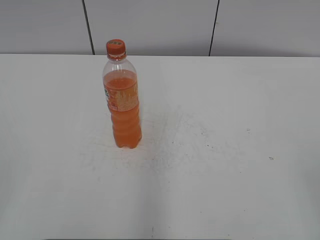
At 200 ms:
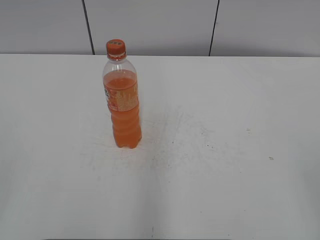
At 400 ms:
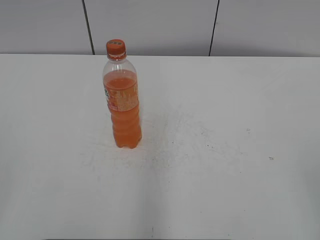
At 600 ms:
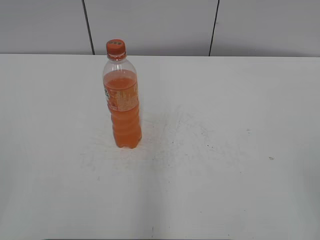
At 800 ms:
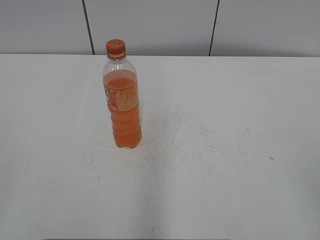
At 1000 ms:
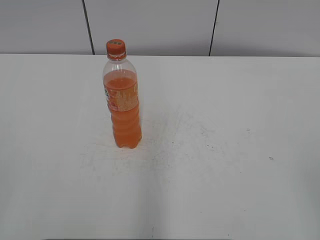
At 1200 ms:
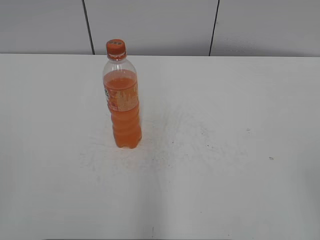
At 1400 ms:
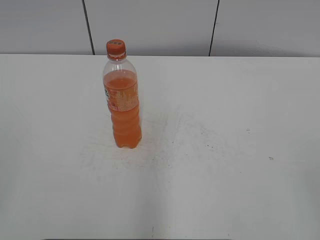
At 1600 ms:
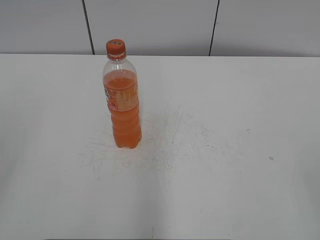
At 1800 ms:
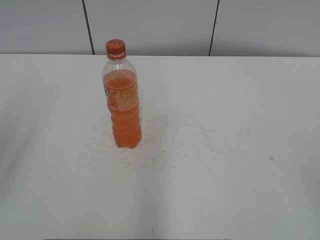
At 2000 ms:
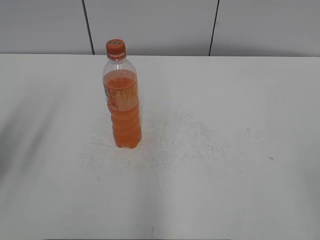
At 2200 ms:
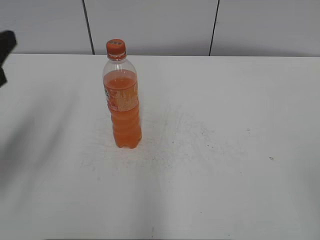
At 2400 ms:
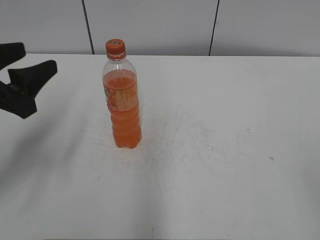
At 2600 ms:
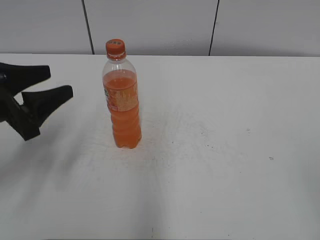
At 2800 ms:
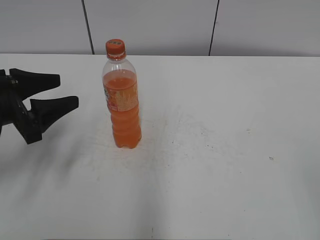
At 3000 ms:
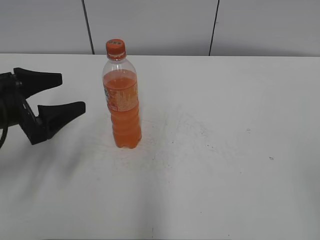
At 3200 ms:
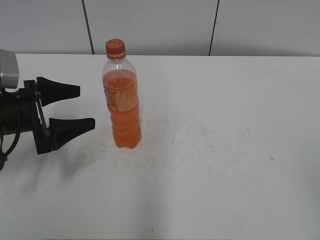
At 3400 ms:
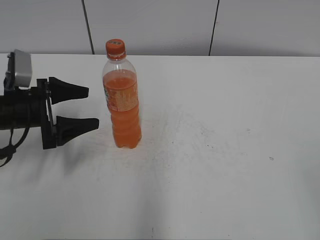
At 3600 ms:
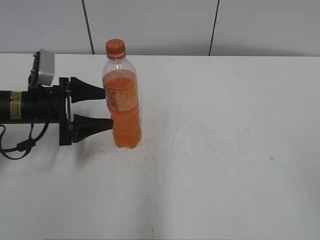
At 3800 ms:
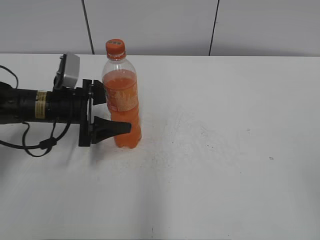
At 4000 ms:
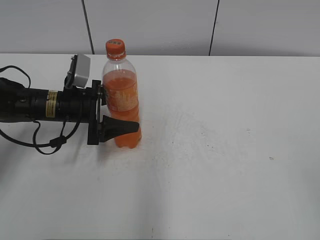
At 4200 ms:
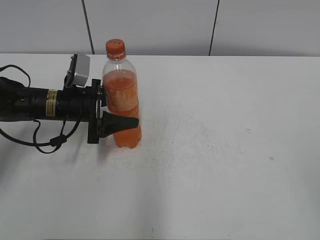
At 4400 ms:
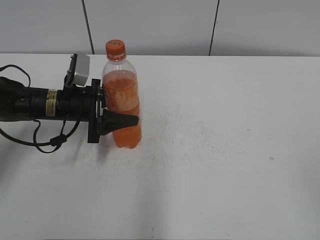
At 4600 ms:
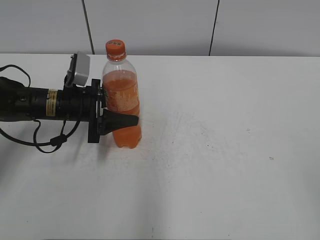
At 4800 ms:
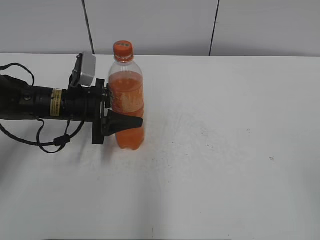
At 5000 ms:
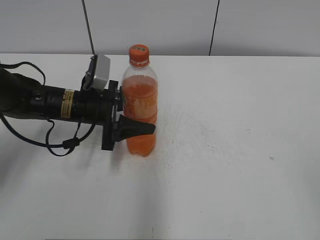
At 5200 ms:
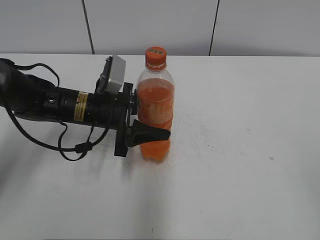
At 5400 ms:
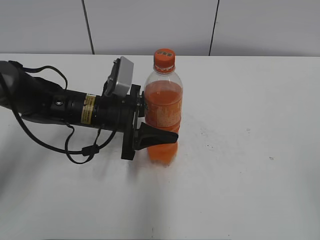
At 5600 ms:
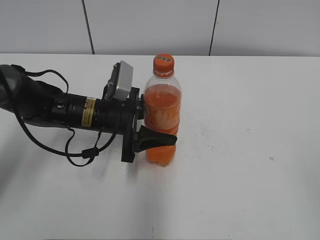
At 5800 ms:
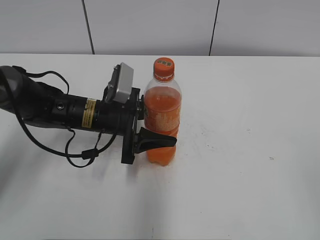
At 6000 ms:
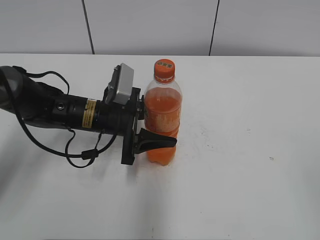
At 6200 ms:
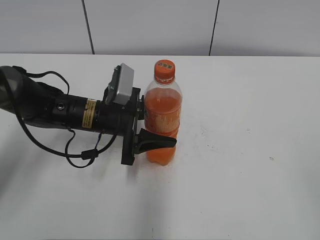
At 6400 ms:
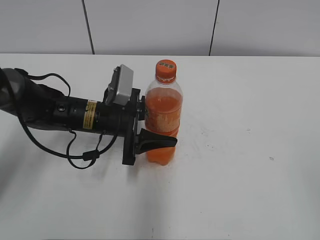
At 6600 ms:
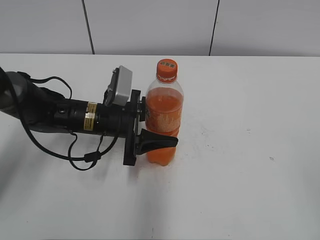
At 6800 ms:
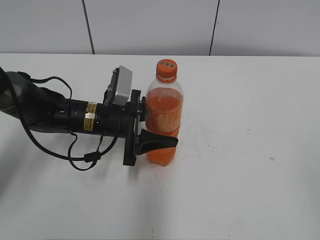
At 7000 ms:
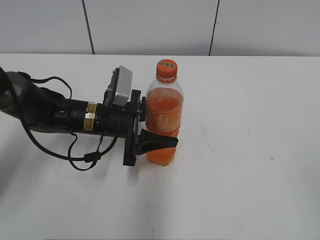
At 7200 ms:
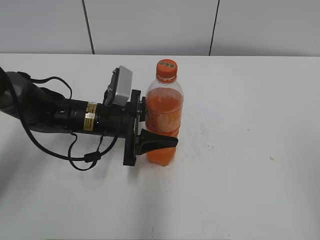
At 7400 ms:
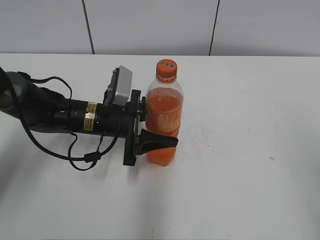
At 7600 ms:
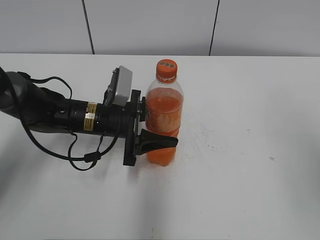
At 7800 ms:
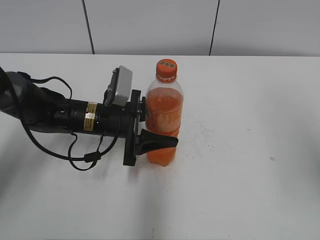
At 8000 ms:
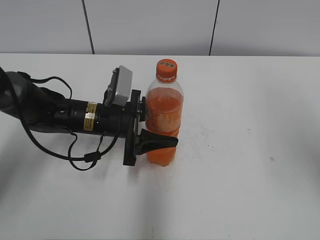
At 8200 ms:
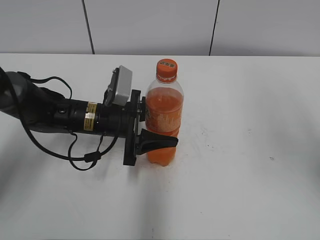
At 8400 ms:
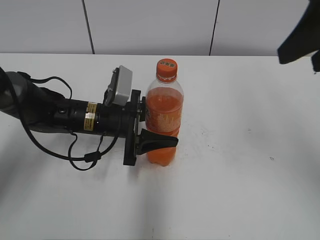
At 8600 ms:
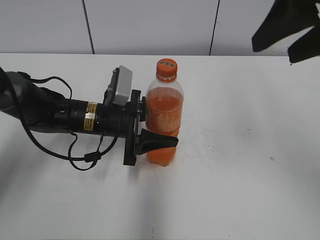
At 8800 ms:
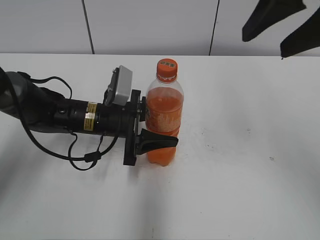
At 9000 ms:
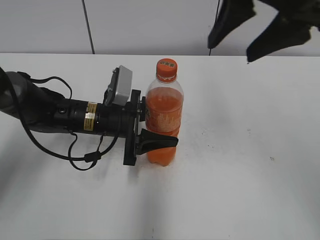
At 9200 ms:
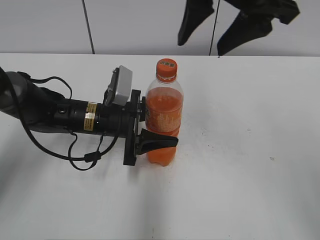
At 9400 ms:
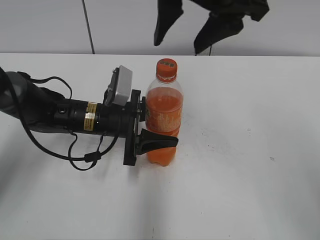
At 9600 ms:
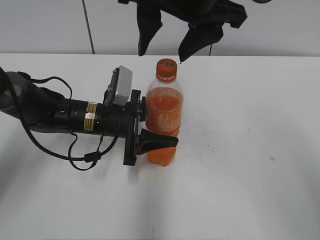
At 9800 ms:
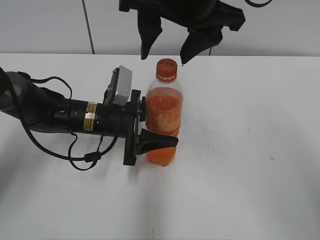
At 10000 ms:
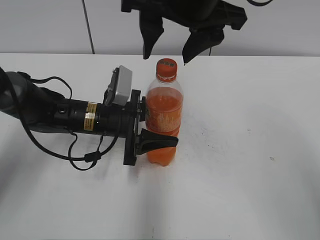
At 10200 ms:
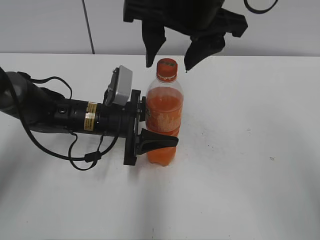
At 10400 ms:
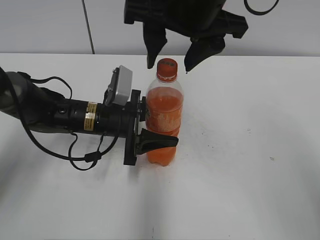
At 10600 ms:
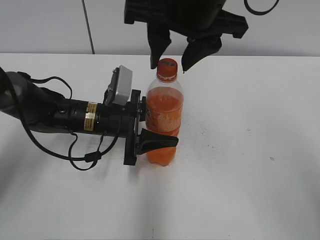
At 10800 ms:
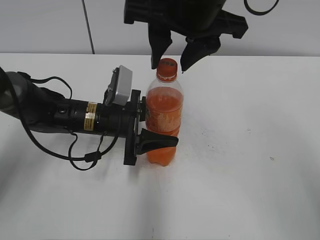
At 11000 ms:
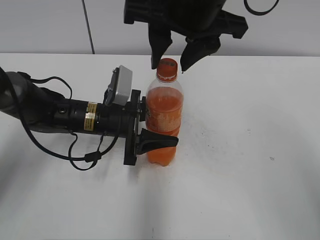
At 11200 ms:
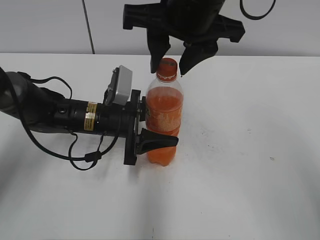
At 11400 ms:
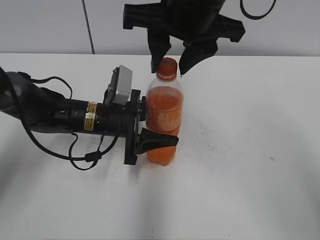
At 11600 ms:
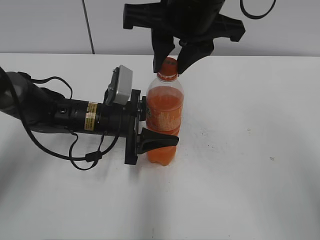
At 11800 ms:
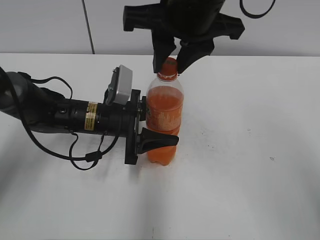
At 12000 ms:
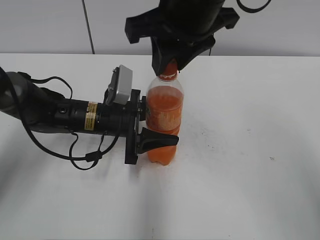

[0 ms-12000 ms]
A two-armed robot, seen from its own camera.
Step, 0 ms to 4400 ms: Grab the Mirinda with the left hand.
Step, 4600 ms to 7600 ms: Move the Mirinda from left to right.
1600 ms to 3000 ms: The left gripper travels forward and downward by about 25 cm, and opens.
3000 ms to 4400 ms: The left gripper heads forward, to the right and downward, covering some 15 cm, and closes its fingers.
4400 ms to 6000 ms: The left gripper goes roughly 10 cm to the right.
6000 ms to 7600 ms: The right gripper heads forward and upward, covering about 15 cm.
7600 ms to 9000 ms: The right gripper travels forward and to the left by roughly 20 cm.
9000 ms to 10400 ms: The right gripper goes roughly 10 cm to the left.
10400 ms to 12000 ms: The right gripper closes.

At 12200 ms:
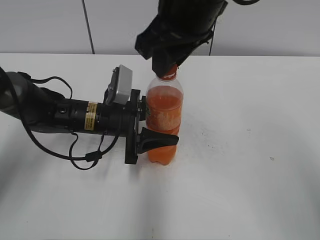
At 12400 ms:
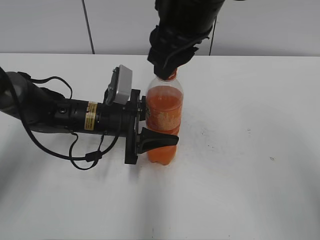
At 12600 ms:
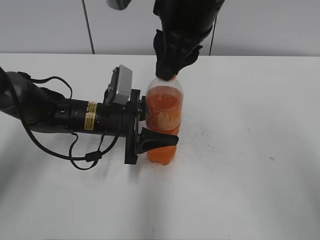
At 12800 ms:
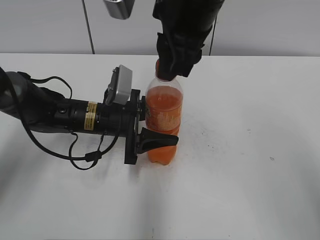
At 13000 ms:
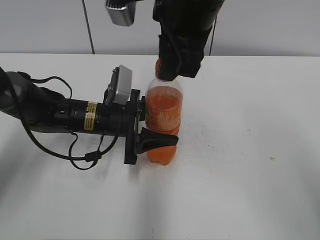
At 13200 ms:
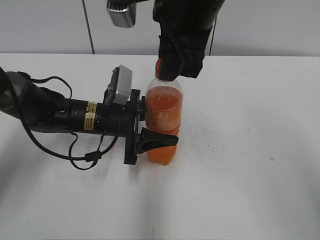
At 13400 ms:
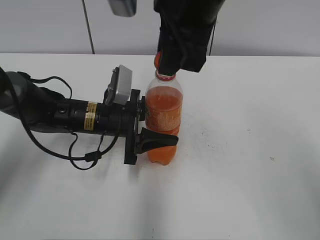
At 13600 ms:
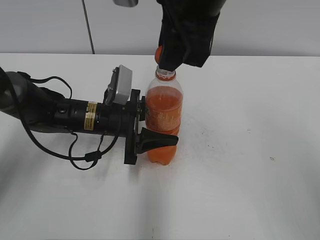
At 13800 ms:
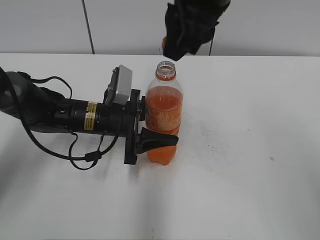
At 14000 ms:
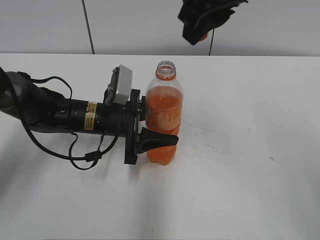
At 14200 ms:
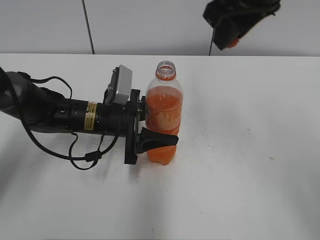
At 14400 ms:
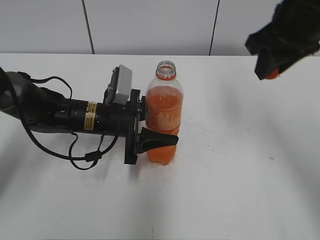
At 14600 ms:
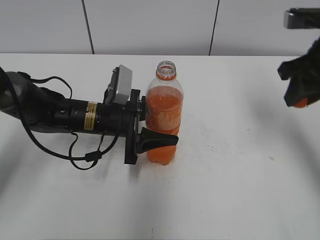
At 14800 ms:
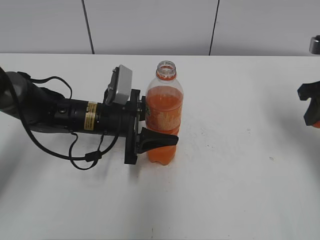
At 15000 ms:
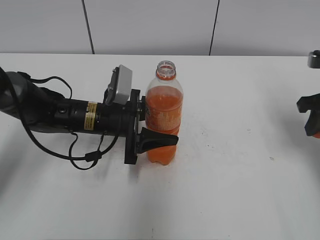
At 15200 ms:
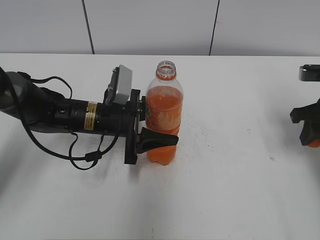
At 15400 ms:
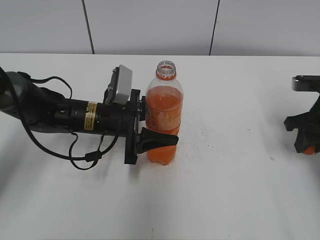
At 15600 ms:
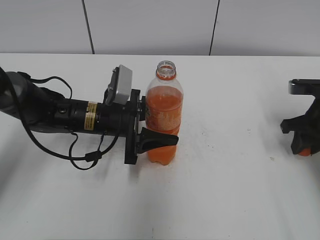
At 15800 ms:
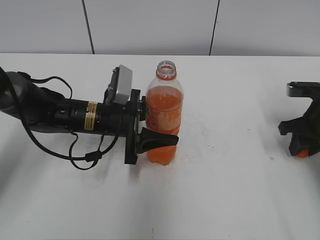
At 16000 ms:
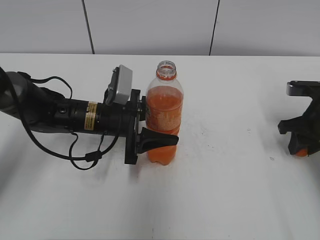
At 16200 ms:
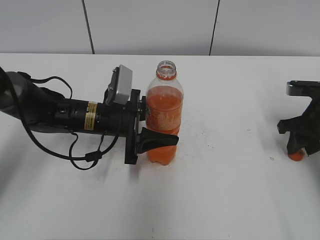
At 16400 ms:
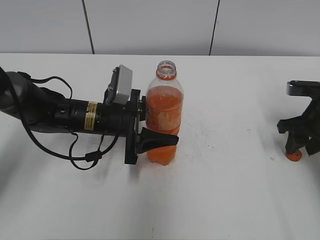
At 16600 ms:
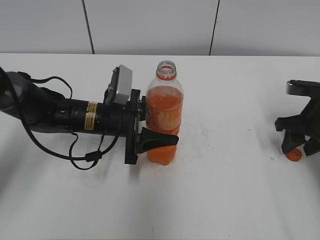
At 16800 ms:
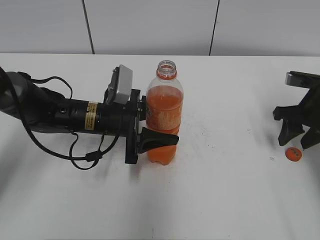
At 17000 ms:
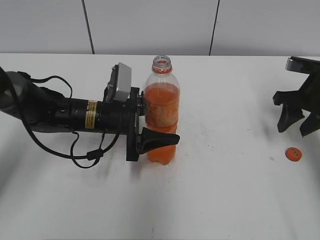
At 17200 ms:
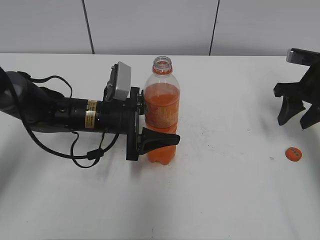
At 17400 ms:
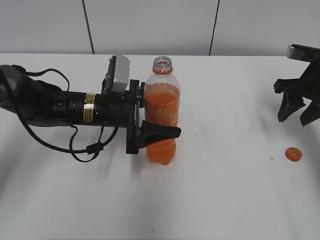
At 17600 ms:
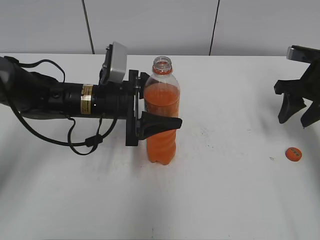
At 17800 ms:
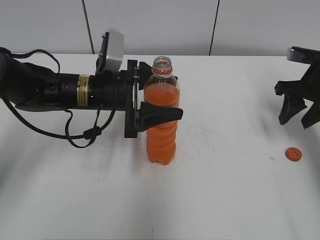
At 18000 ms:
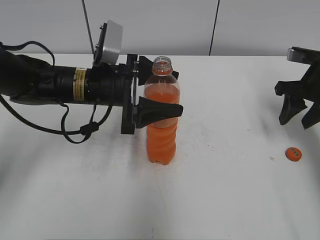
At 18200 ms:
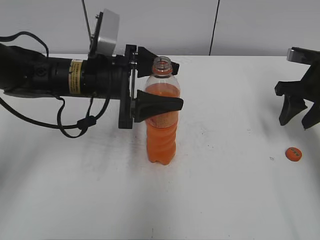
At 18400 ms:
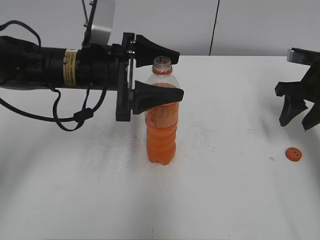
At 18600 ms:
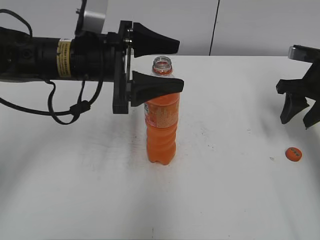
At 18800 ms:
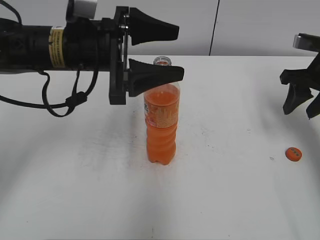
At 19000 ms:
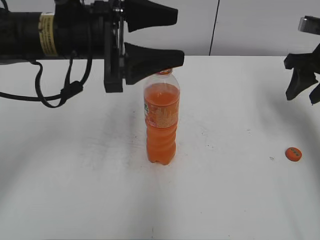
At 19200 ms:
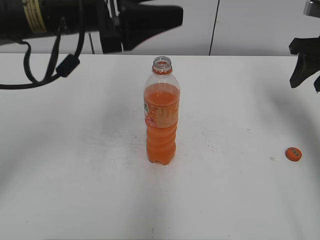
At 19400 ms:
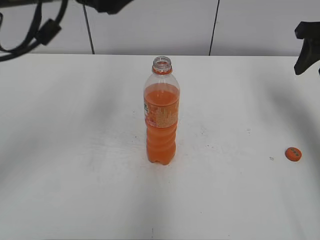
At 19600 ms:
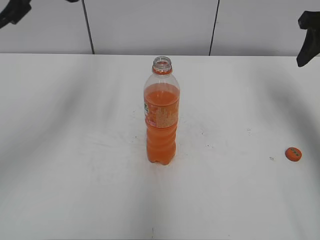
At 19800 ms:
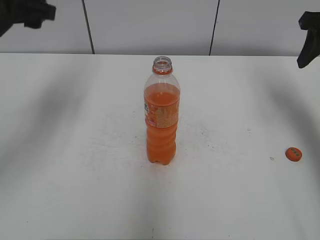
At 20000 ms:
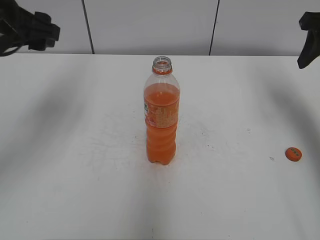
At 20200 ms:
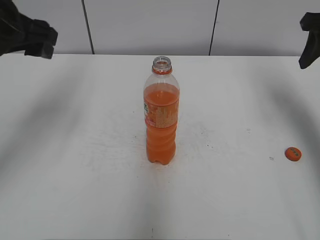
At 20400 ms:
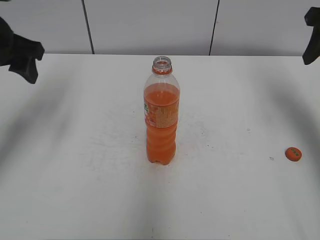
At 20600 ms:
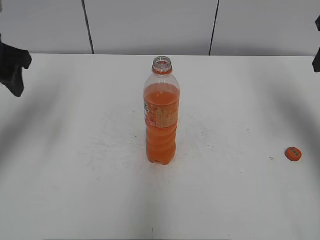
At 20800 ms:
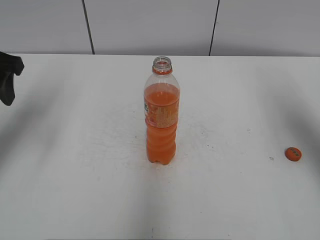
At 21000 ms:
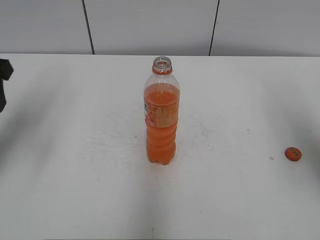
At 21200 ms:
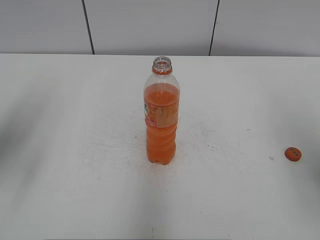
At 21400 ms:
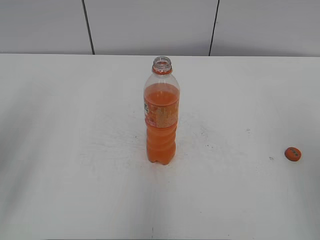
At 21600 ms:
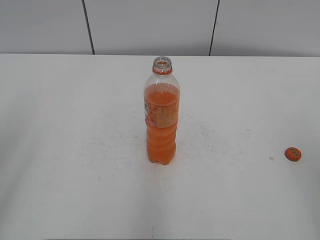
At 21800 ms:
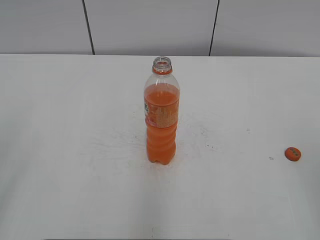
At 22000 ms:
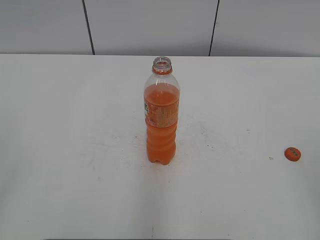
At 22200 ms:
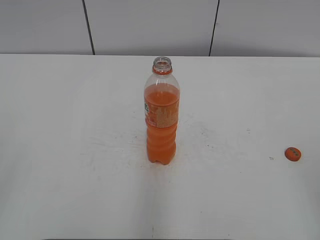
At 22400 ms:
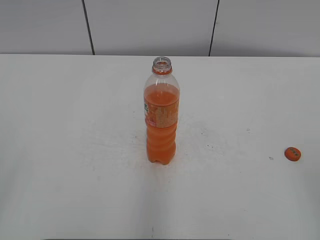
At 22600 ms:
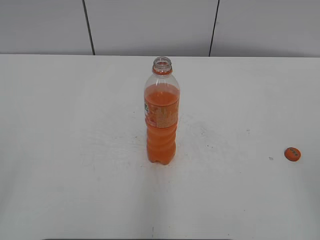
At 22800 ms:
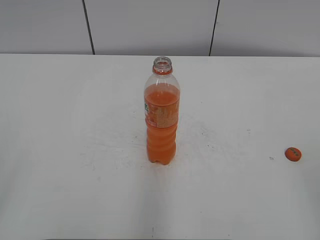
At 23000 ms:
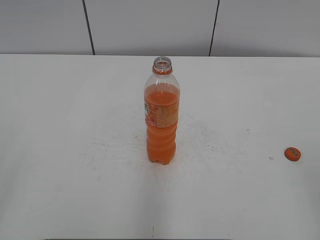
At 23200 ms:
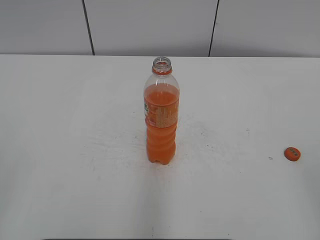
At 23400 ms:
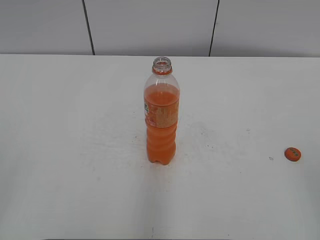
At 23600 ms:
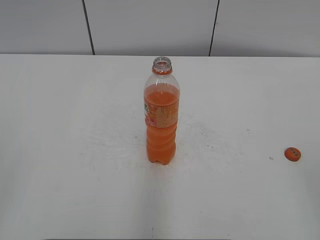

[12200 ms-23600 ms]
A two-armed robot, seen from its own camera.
Step, 13800 ms to 16400 ms: Place the bottle cap on the right.
13600 ms to 15000 ms: The right gripper goes approximately 30 cm to the right and downward.
15000 ms to 16400 ms: The right gripper heads downward, covering some 5 cm, and opens up.
16400 ms to 17800 ms: The grippers both shift upward by roughly 5 cm. The left gripper opens.
17800 ms to 19400 ms: The left gripper goes approximately 20 cm upward. Meanwhile the right gripper moves upward, approximately 10 cm.
19400 ms to 20800 ms: The right gripper heads backward, covering approximately 10 cm; the left gripper moves to the left, some 15 cm.
20800 ms to 22200 ms: Both grippers move backward, roughly 30 cm.
